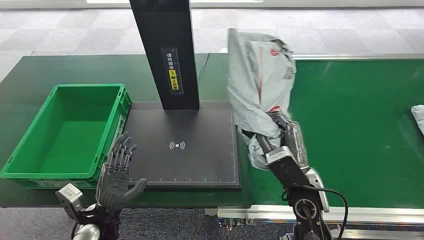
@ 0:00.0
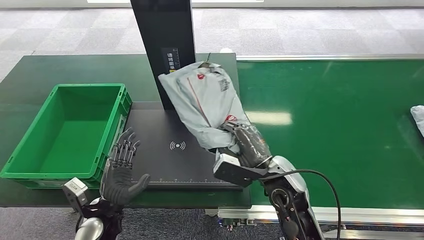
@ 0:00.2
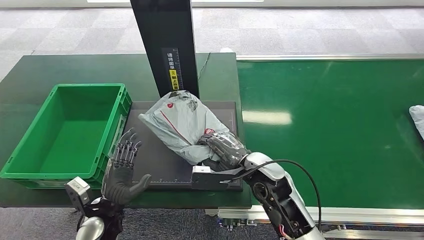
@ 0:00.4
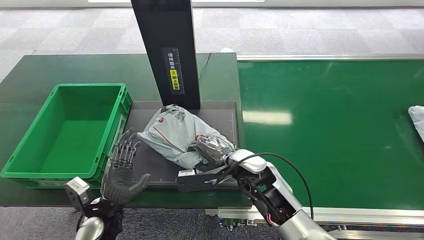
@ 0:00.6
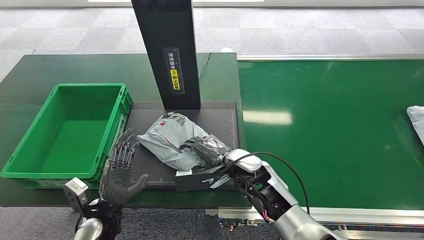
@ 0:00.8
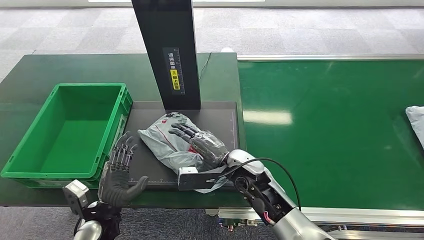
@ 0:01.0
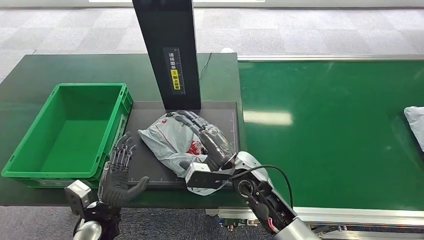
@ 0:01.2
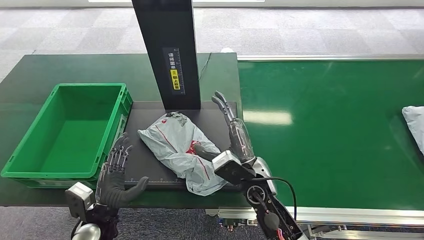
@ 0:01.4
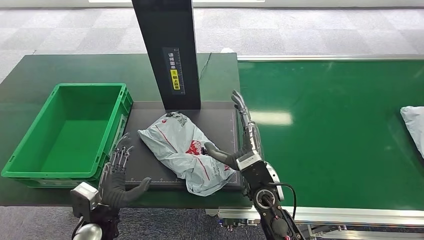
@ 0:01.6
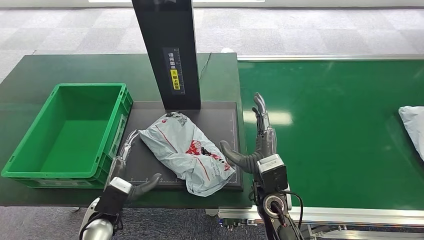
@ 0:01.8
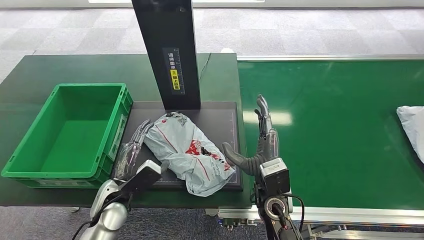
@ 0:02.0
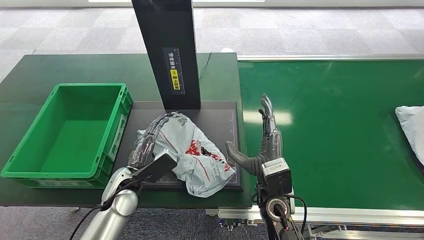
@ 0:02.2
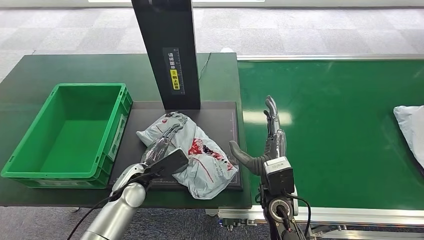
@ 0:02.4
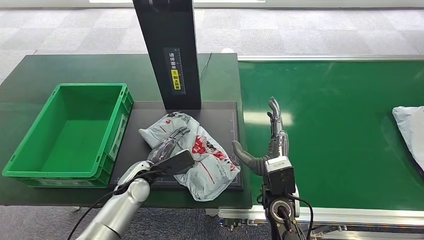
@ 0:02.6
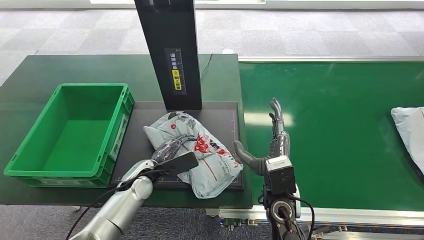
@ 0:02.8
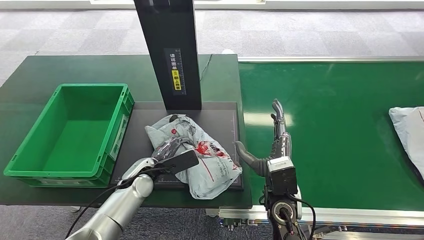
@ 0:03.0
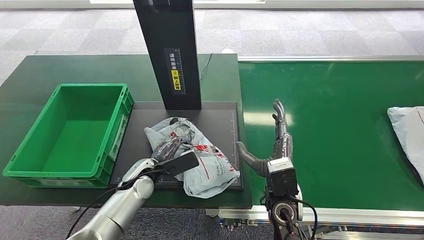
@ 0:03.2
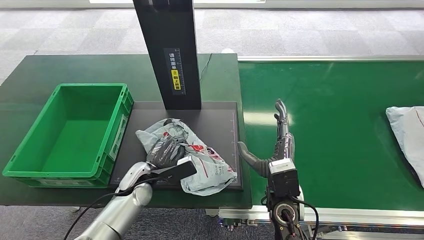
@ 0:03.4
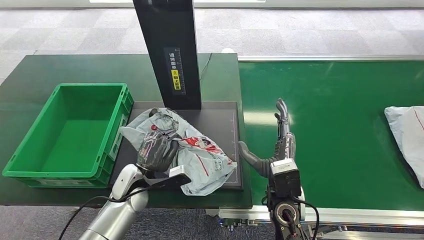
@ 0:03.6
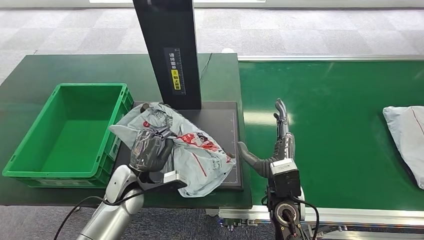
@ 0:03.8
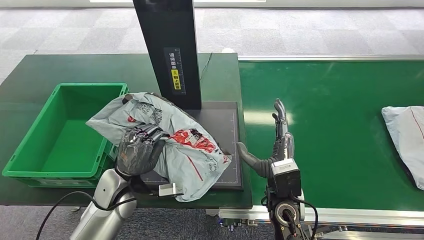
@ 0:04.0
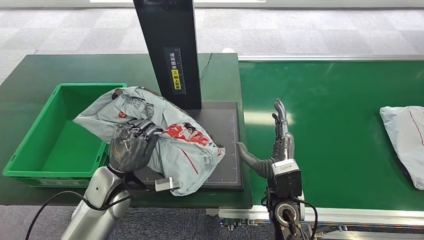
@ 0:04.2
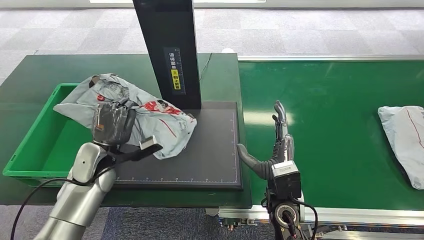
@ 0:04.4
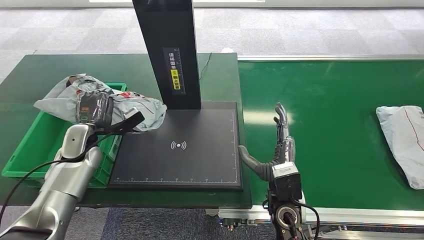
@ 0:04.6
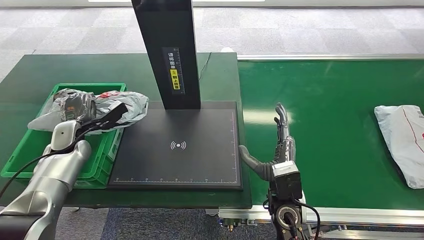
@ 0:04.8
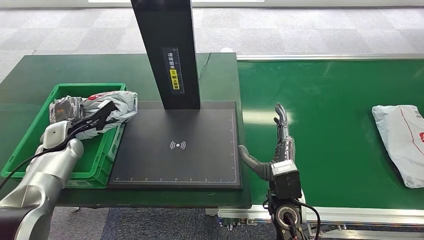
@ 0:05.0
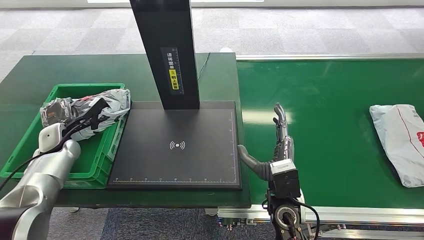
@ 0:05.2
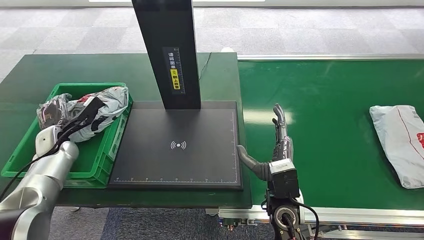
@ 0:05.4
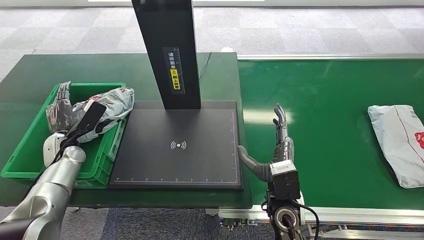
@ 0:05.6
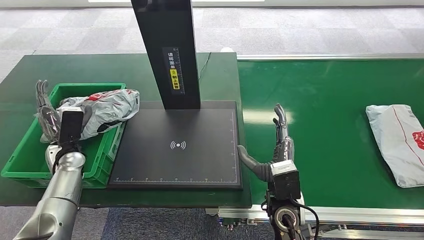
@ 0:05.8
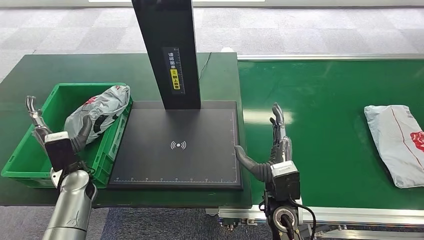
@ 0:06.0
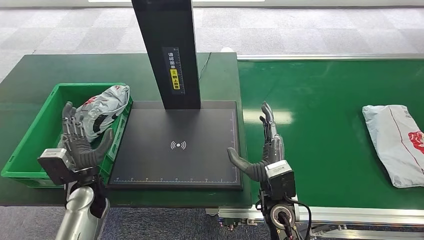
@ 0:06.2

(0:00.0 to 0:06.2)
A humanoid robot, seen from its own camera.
Step, 0:03.8 - 0:04.0: Pick up the package from the inbound machine.
Step, 0:06.0 - 0:06.2: Place the package into the parcel locker.
0:01.6 - 0:03.2: The left hand moves forward and to the right, approximately 15 cm.

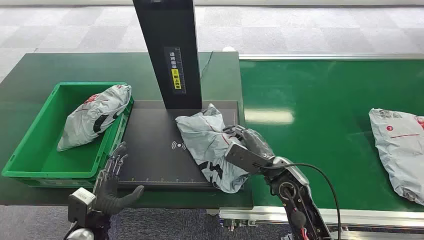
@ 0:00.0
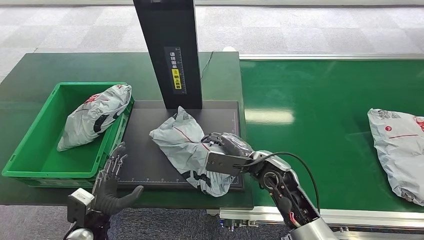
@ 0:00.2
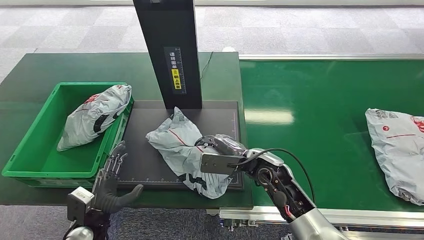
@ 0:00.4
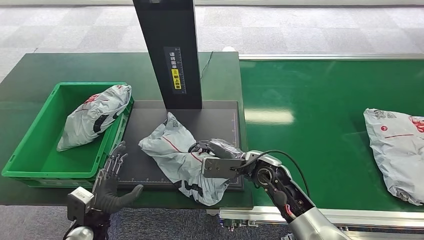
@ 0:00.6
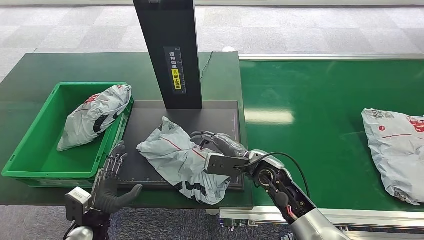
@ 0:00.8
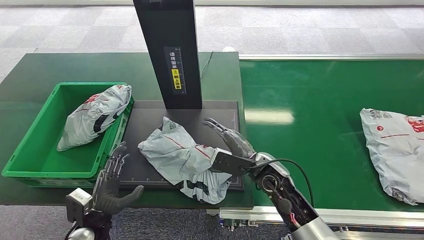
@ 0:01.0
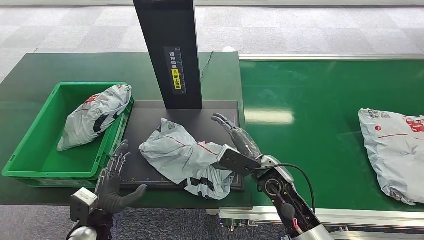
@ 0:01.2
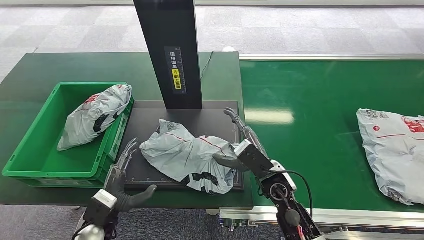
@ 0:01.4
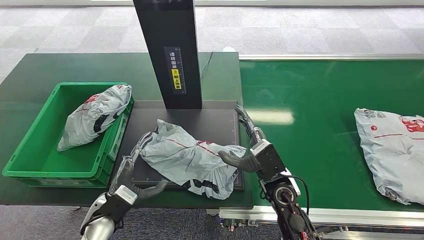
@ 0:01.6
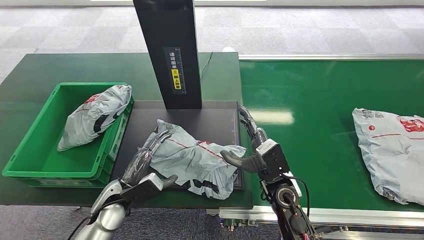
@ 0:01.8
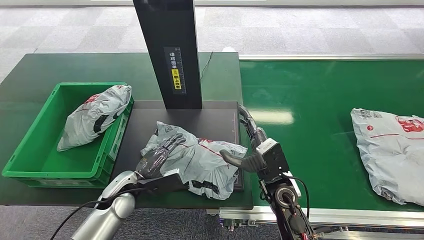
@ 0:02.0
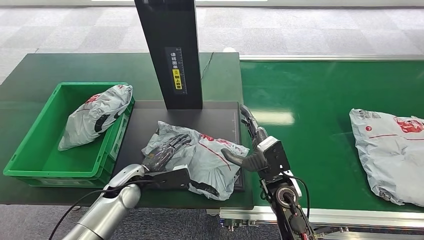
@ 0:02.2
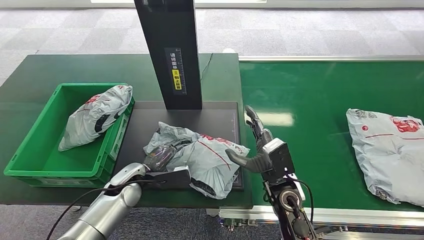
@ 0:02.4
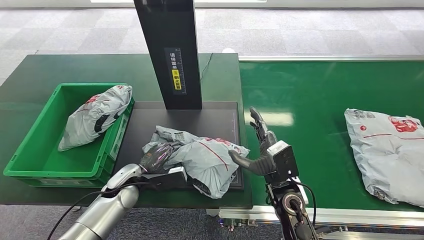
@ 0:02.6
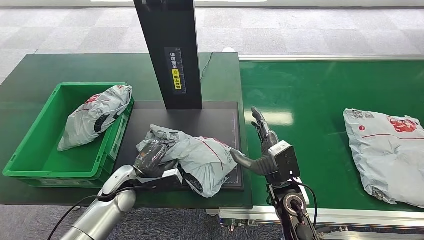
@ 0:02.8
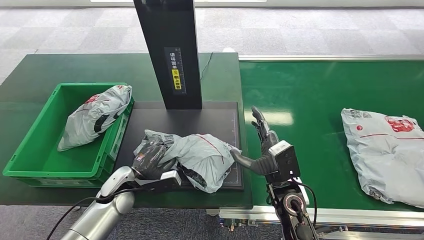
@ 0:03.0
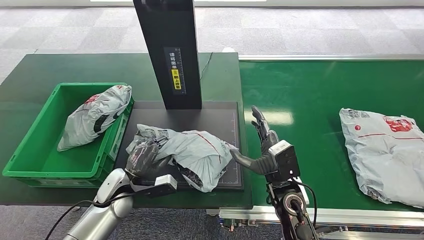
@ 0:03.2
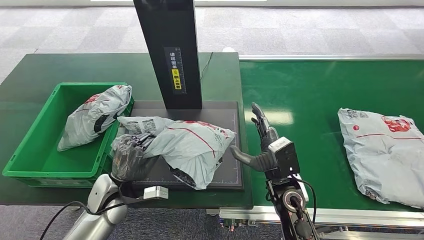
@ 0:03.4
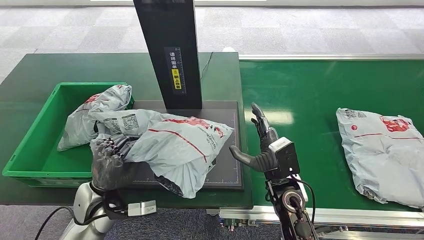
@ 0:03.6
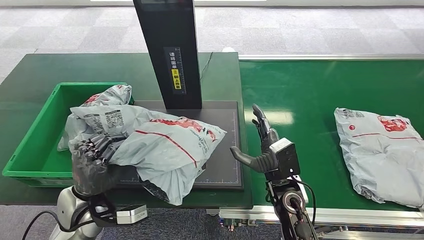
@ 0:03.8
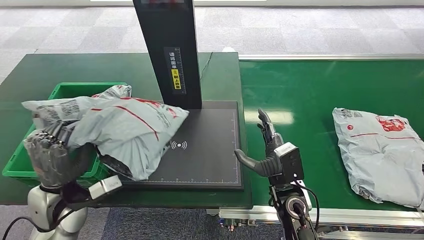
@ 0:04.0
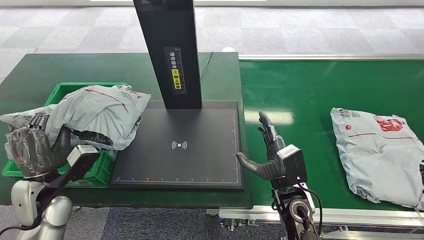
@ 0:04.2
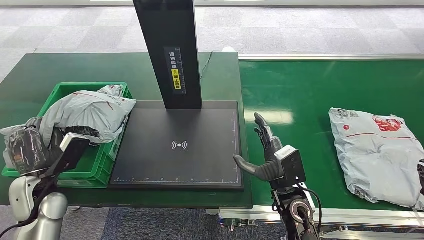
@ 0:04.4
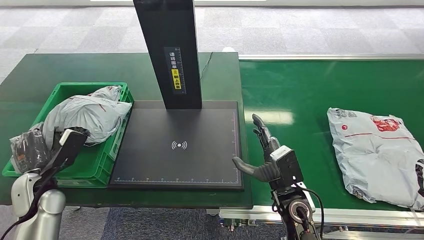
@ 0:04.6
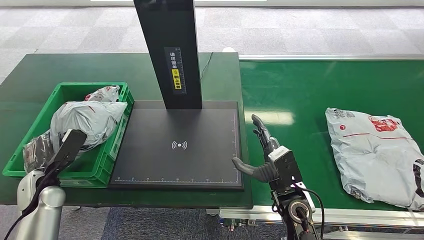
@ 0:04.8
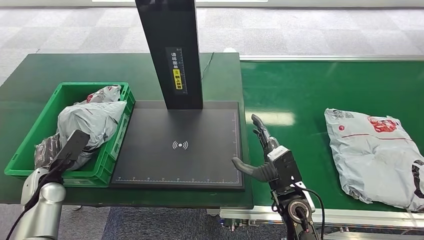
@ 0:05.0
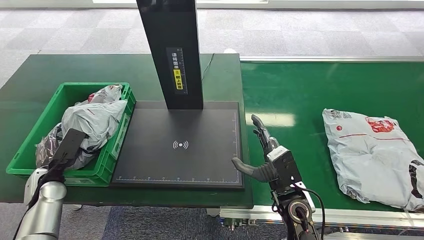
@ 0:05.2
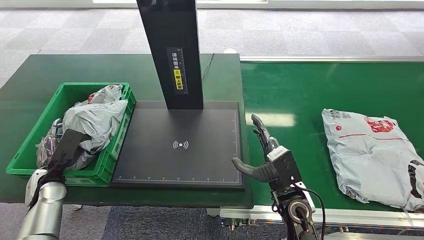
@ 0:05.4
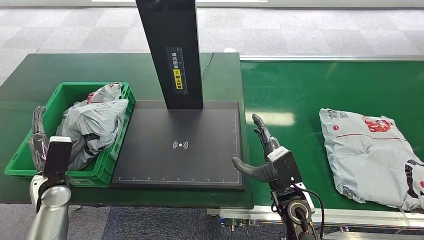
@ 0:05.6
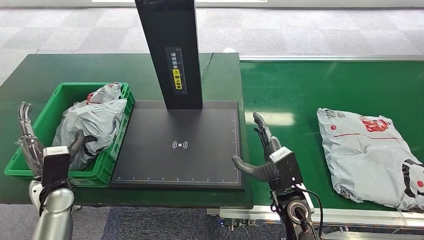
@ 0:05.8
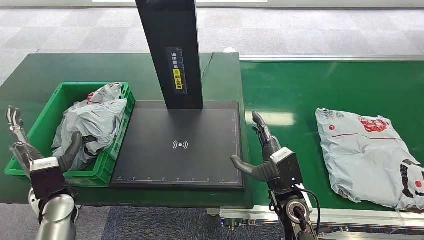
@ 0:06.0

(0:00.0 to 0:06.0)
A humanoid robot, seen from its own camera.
Step, 0:05.8 - 0:06.0: Place the package into the parcel locker.
0:01.6 - 0:03.0: The left hand shifts roughly 10 cm forward.
